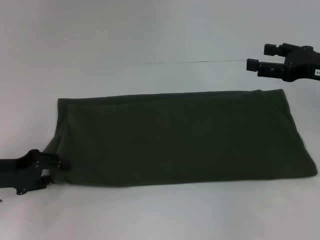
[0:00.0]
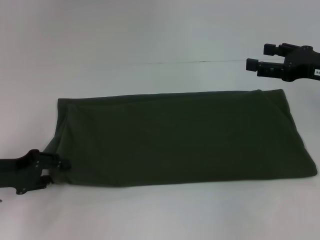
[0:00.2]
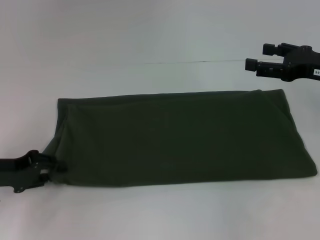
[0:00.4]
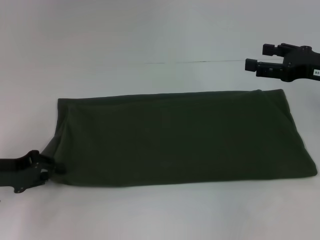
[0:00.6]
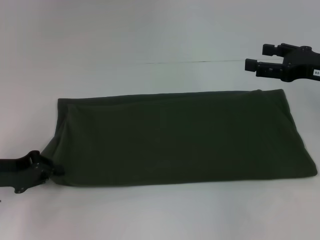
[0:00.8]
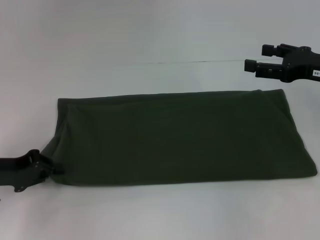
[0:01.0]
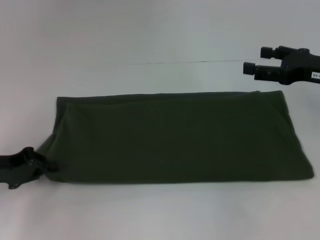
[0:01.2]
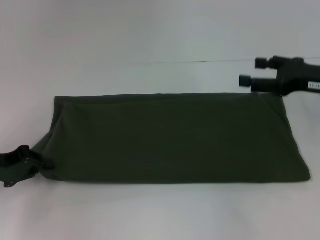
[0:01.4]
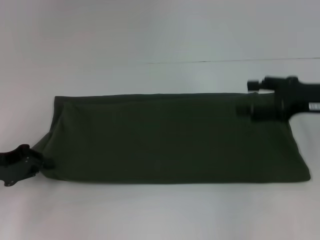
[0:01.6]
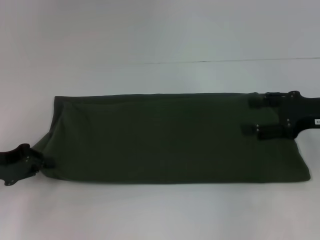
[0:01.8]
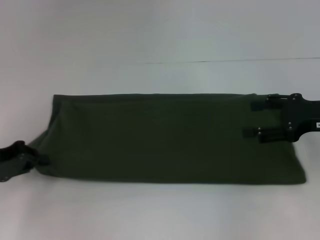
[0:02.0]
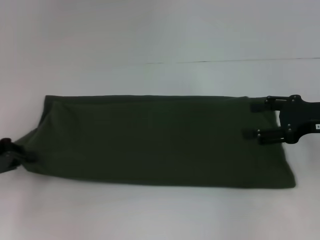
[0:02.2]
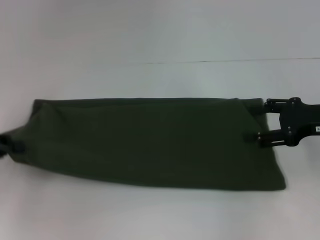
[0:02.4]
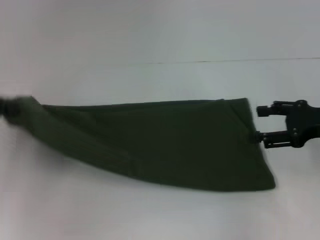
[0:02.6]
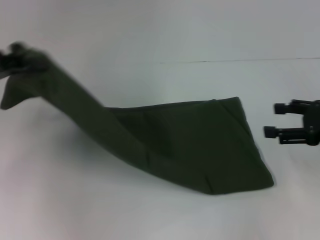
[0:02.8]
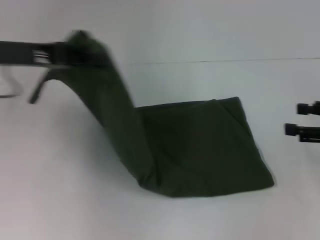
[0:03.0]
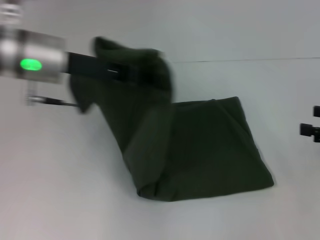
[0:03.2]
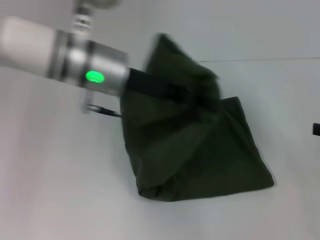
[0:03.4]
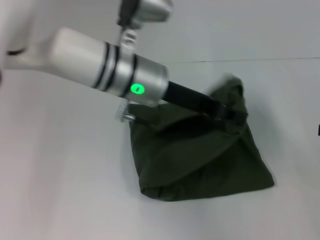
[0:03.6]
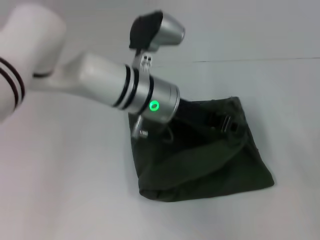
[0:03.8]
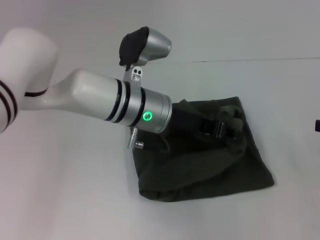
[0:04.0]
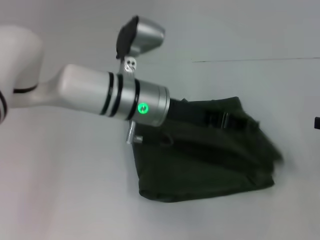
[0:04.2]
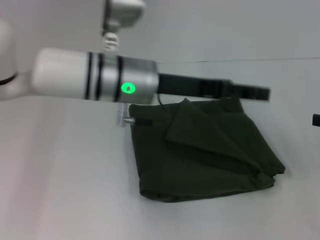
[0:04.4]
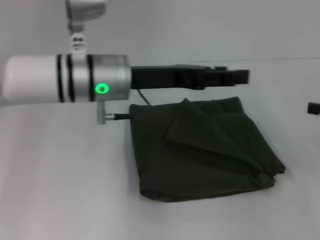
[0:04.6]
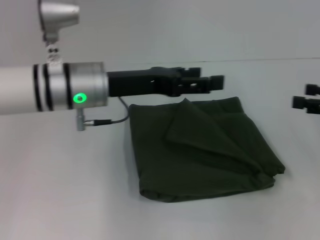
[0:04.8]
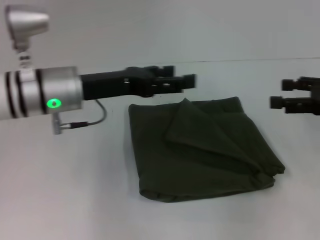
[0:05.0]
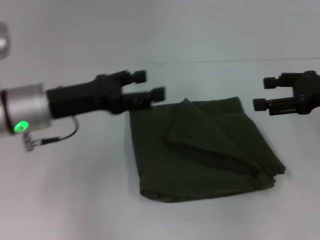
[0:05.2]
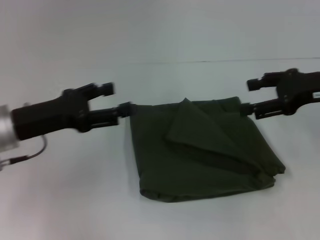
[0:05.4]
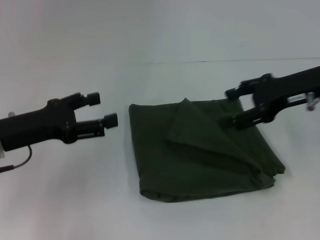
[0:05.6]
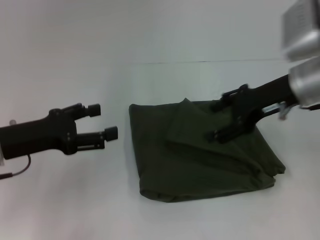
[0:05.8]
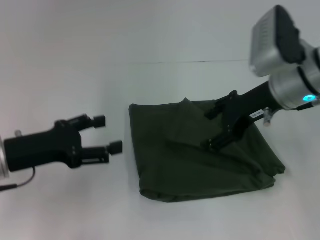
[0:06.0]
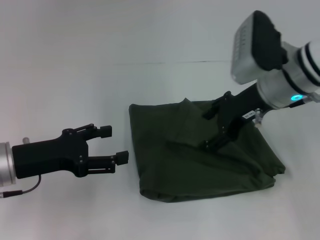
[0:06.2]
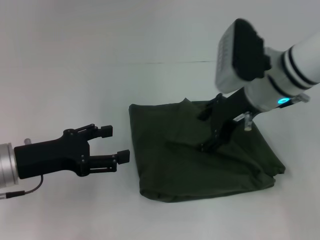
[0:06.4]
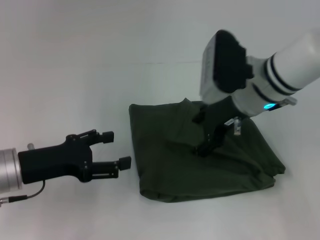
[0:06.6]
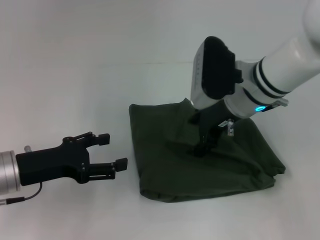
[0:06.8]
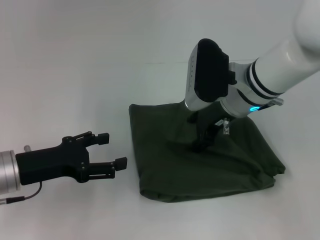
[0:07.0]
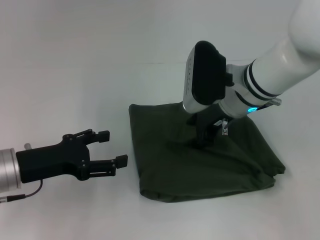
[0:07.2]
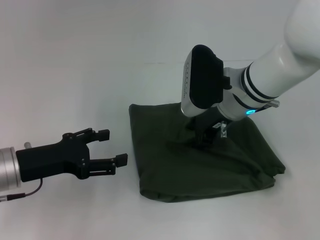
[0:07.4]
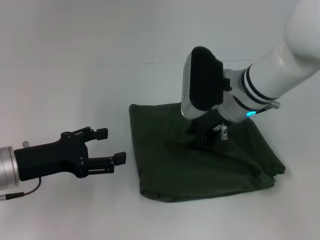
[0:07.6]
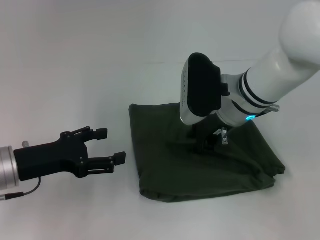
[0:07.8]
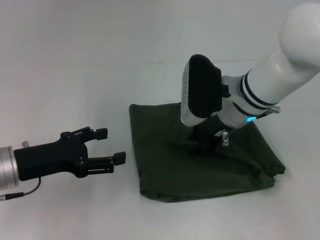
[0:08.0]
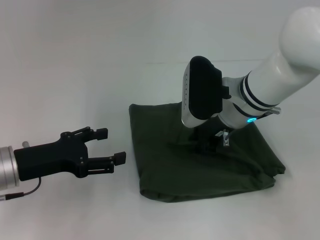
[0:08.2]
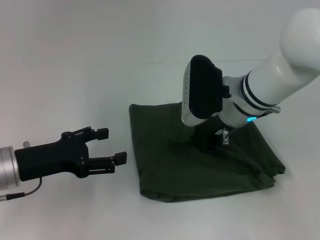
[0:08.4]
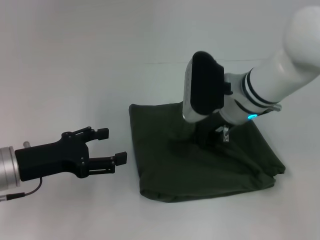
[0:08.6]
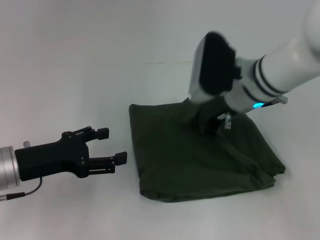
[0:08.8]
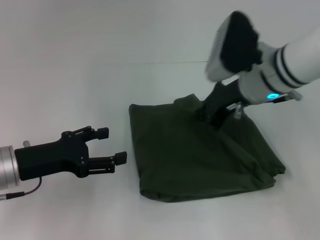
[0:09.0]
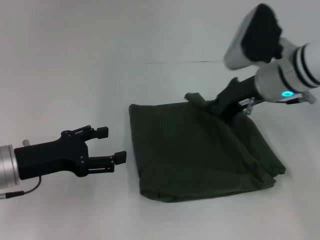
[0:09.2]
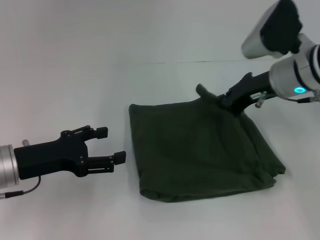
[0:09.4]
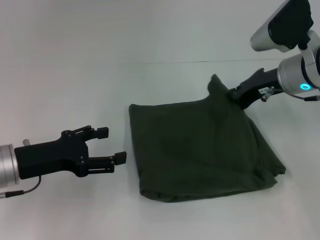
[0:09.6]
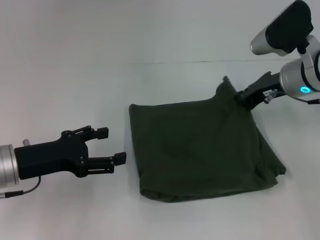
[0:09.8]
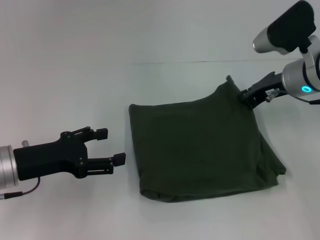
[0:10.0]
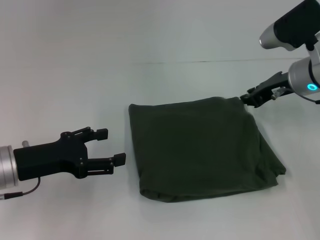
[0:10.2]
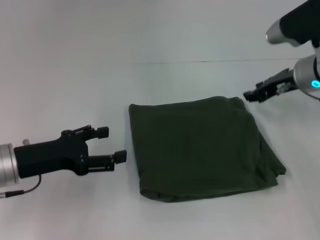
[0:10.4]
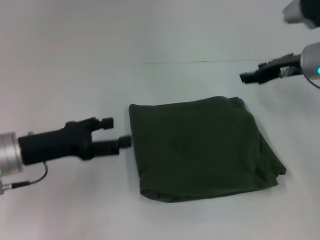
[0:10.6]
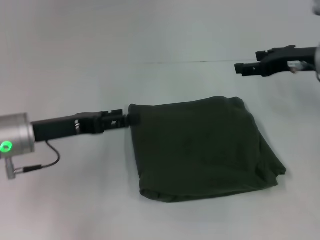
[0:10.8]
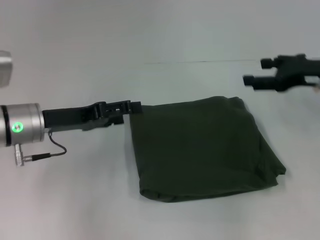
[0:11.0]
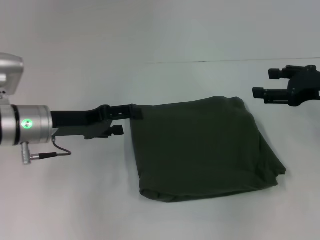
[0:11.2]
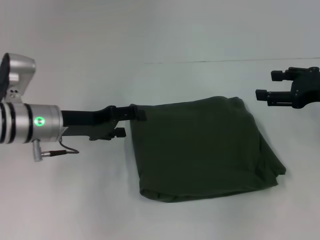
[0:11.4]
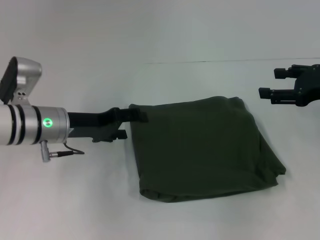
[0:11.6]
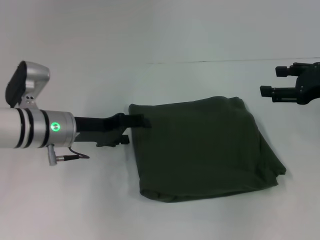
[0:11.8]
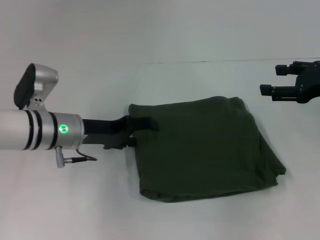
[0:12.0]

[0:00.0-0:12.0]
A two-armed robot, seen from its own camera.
Step, 0:00.0 to 0:04.2: Fold the clothes with your left hand.
0:00.0 to 0:01.6: The left gripper closes up.
0:01.6 to 0:03.0: The left gripper heads upward, to the right and forward, covering approximately 20 cm; the right gripper heads to the right, covering some 5 cm.
0:03.0 to 0:04.4: The left gripper goes approximately 20 cm to the right, and opens.
0:04.4 to 0:06.0: The right gripper shifts about 25 cm to the left and forward; the left gripper moves to the left and backward, about 20 cm, and opens its fingers.
0:06.0 to 0:07.6: The right gripper heads to the left, covering roughly 5 cm, and closes up.
0:07.6 to 0:09.0: The right gripper closes up.
0:09.0 to 0:10.4: The right gripper travels to the right by about 10 cm.
0:10.4 to 0:12.0: The right gripper goes about 10 cm to the right and backward, and opens its fingers. The left gripper is displaced forward and to the right by roughly 10 cm.

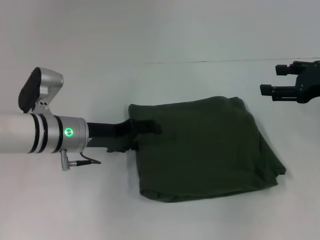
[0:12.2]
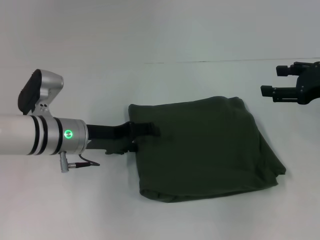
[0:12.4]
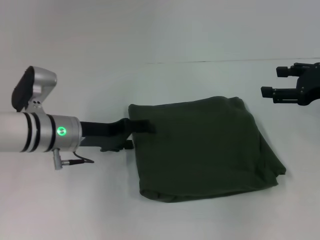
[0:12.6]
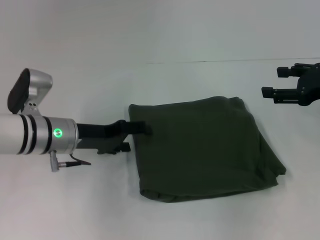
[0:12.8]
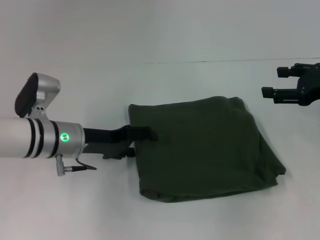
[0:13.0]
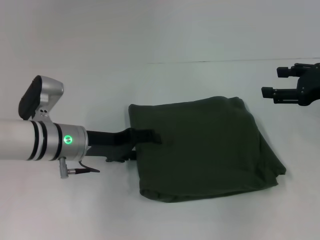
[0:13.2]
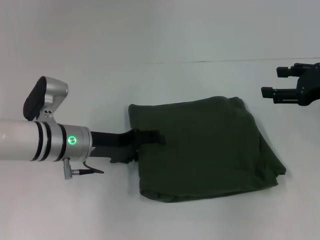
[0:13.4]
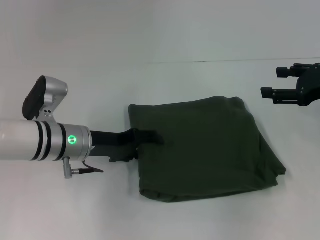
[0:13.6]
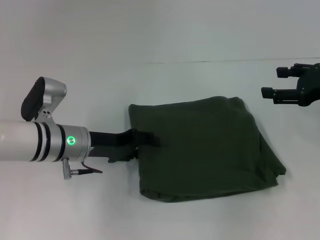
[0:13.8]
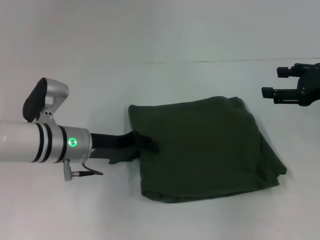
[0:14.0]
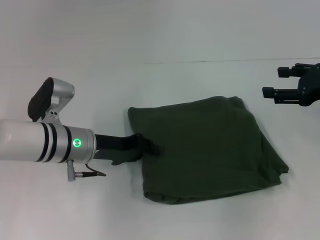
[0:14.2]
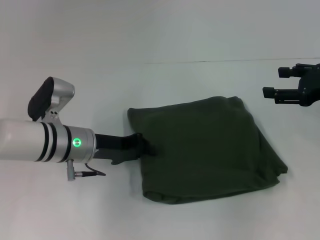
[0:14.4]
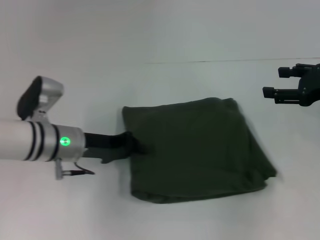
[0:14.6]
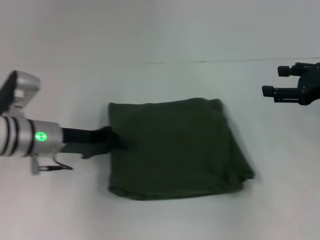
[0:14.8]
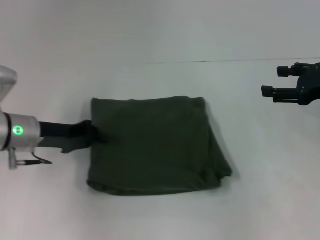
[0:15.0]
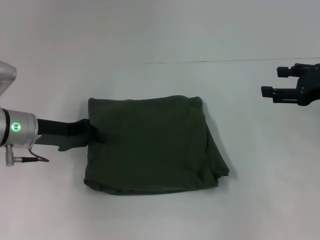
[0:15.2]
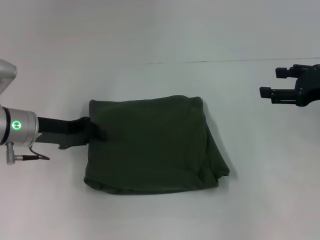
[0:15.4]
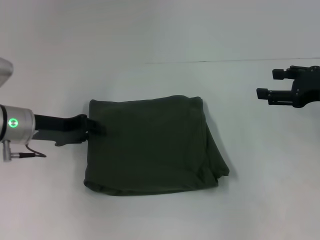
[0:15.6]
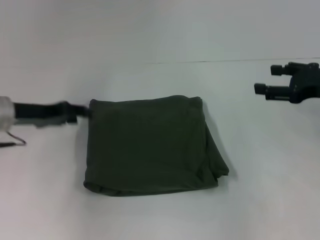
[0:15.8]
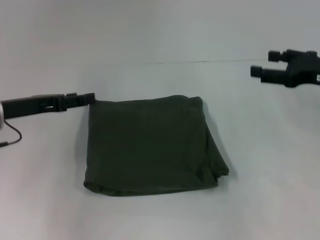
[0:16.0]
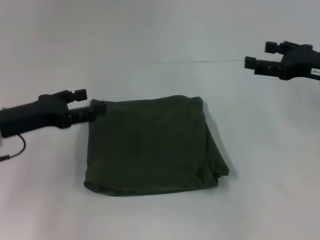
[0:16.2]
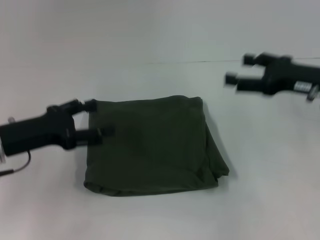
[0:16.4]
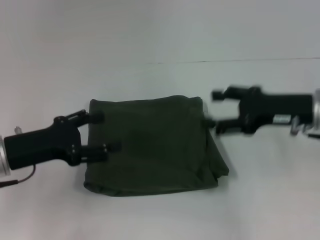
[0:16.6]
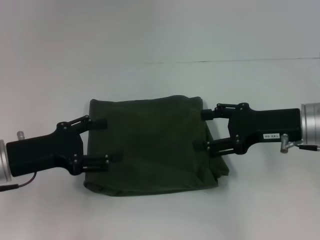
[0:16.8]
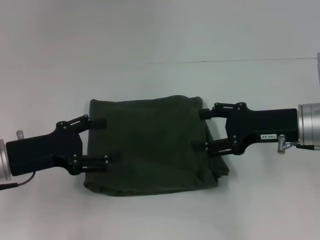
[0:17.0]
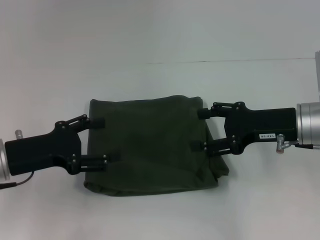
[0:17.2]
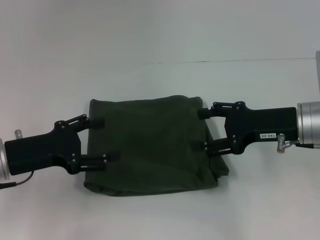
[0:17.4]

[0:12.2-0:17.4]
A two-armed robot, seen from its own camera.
0:12.2 to 0:14.0: The left gripper closes its fingers.
0:14.0 to 0:15.6: The left gripper goes approximately 10 cm to the left, and closes.
0:15.6 to 0:17.4: The right gripper shifts some 10 cm to the left. The left gripper shifts approximately 10 cm backward, and opens its fingers.

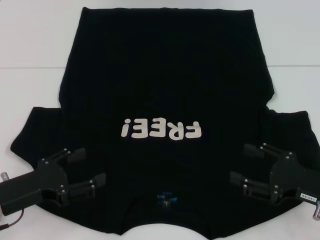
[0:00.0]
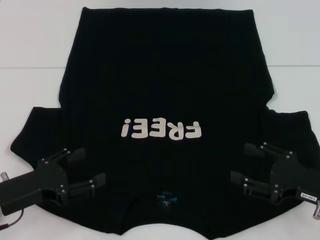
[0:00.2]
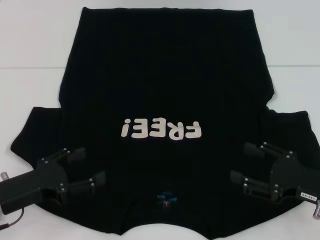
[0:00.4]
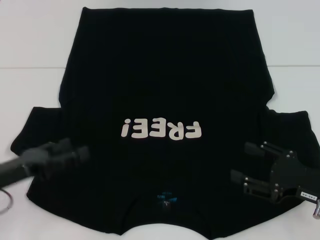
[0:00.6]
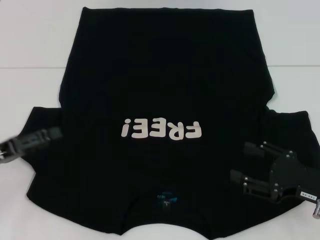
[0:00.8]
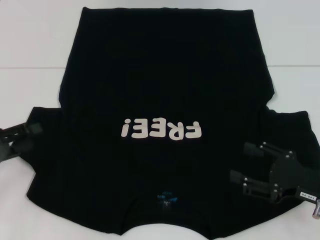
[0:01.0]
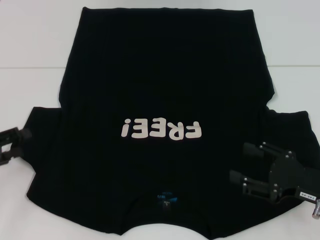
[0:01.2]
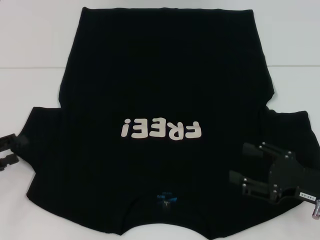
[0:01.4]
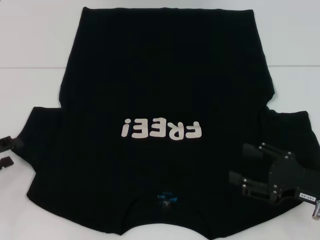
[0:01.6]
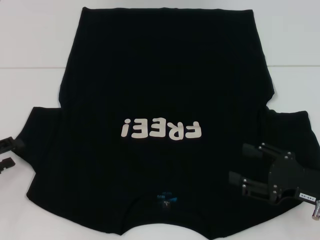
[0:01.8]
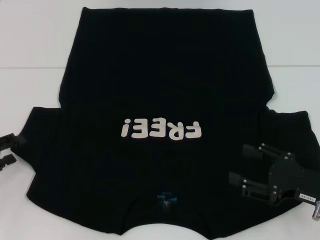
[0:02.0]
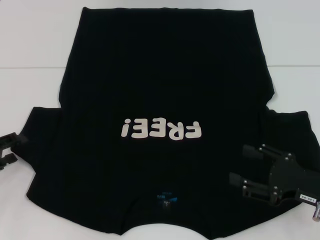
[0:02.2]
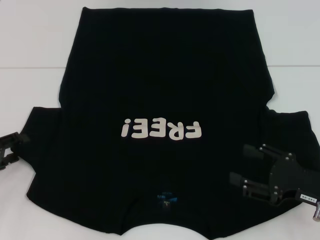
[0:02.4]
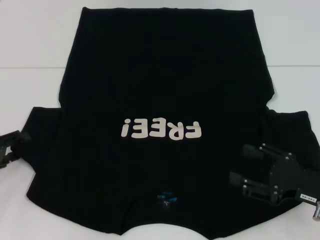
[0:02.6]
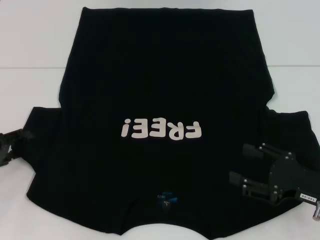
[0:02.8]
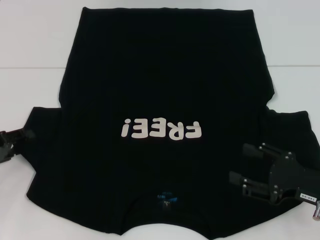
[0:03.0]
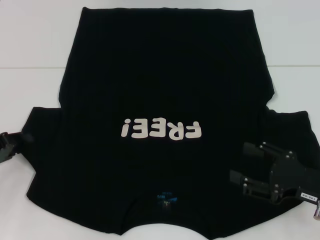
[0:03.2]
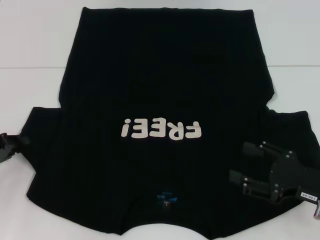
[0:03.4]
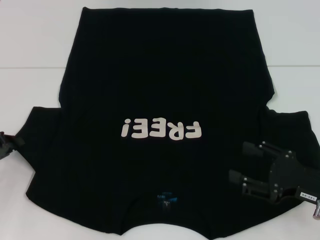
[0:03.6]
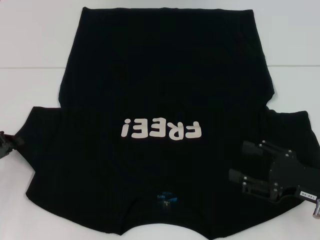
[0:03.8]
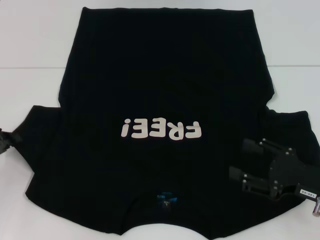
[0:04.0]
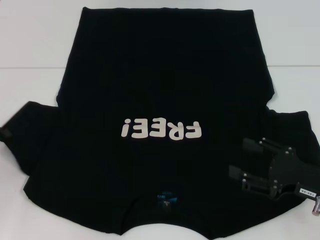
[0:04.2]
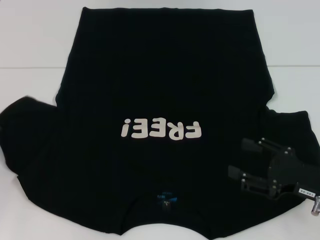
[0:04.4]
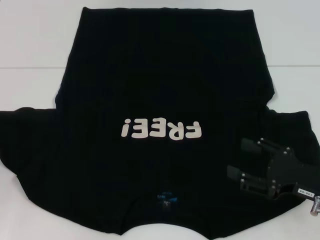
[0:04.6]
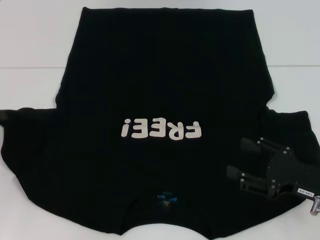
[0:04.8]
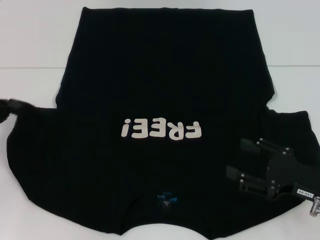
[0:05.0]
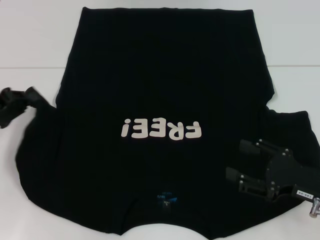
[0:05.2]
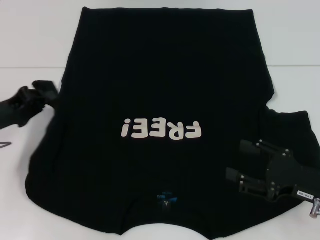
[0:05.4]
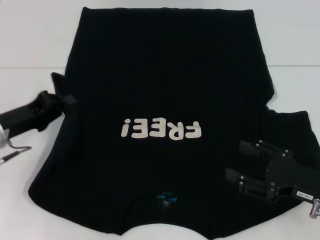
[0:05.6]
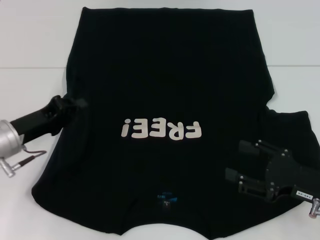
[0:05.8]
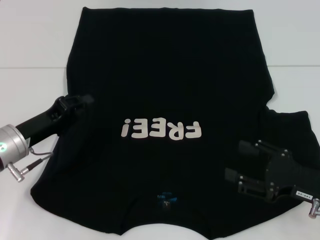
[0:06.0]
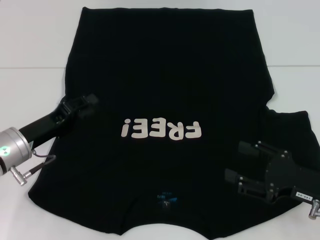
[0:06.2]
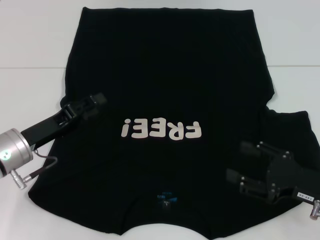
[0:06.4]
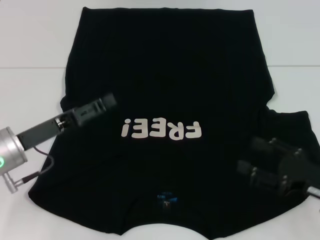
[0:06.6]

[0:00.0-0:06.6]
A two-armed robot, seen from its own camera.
0:00.0 to 0:01.6: The left gripper shifts roughly 10 cm to the left.
0:01.6 to 0:03.2: The grippers stay close to where they were, moving slightly.
0:03.2 to 0:05.0: The left gripper closes its fingers.
0:05.0 to 0:06.6: The left gripper travels to the right by about 10 cm, and opens up.
